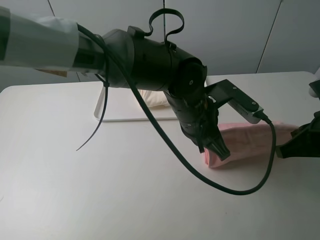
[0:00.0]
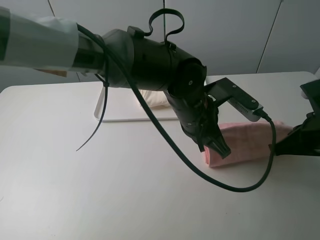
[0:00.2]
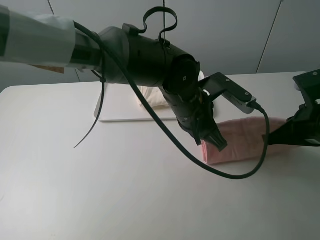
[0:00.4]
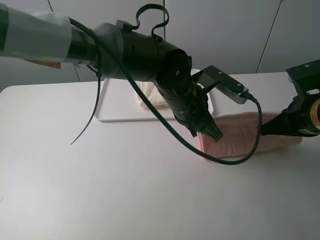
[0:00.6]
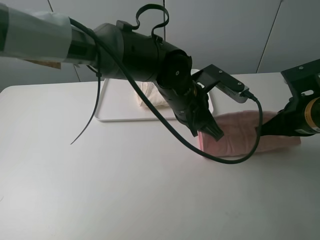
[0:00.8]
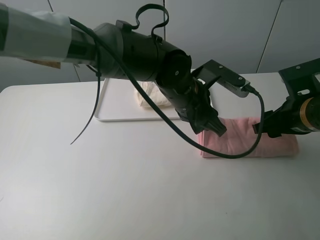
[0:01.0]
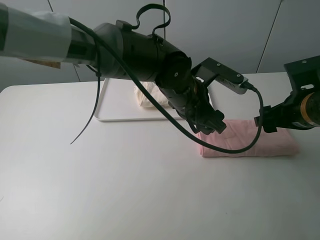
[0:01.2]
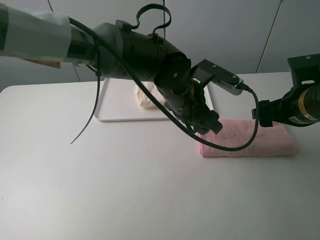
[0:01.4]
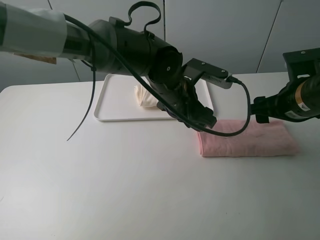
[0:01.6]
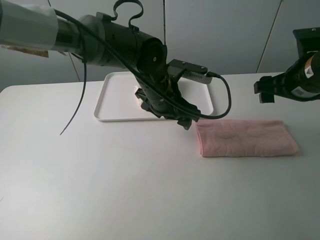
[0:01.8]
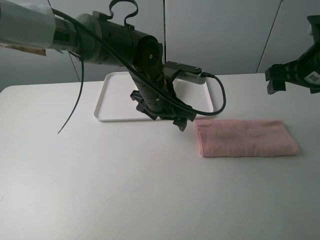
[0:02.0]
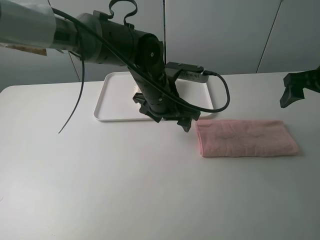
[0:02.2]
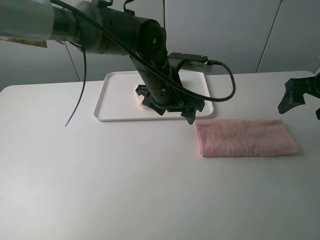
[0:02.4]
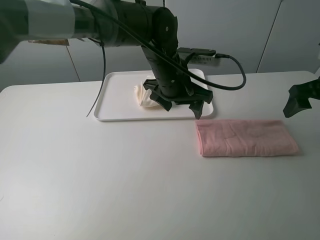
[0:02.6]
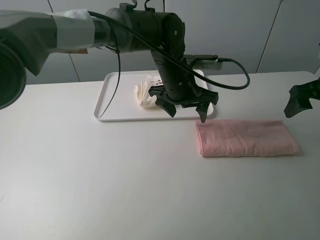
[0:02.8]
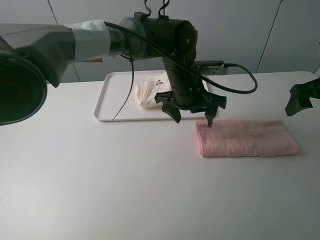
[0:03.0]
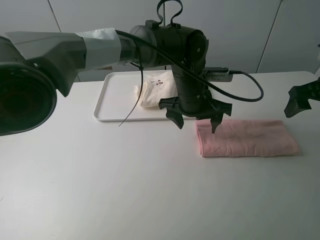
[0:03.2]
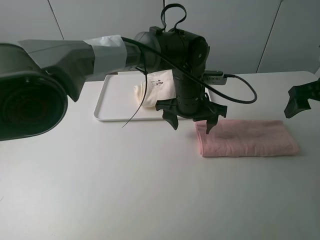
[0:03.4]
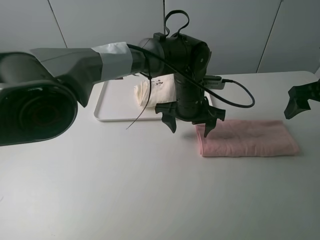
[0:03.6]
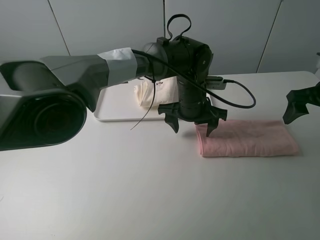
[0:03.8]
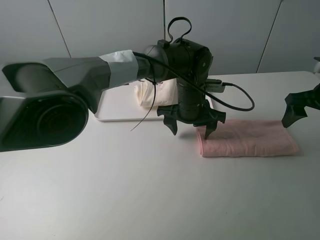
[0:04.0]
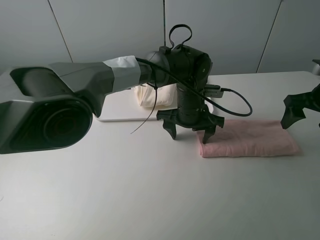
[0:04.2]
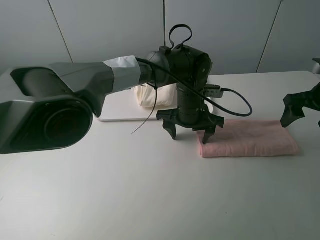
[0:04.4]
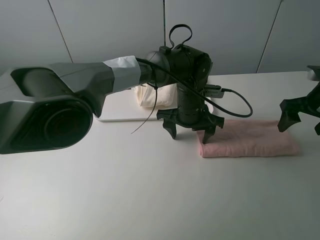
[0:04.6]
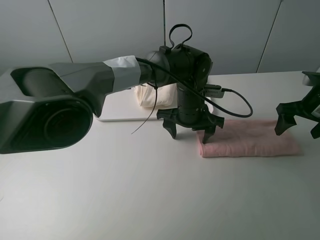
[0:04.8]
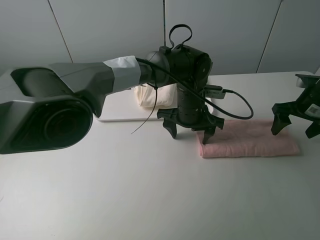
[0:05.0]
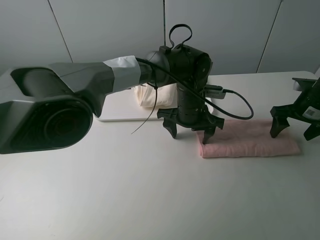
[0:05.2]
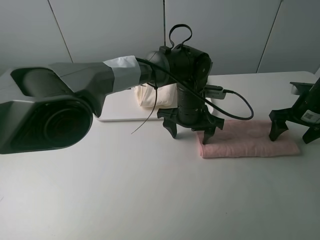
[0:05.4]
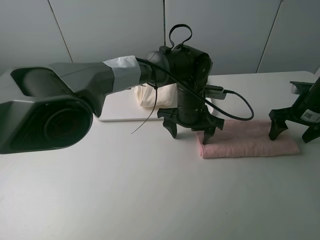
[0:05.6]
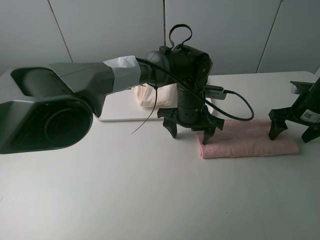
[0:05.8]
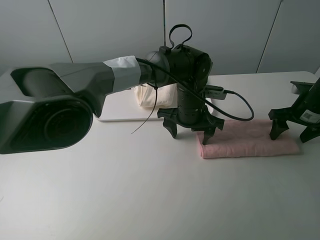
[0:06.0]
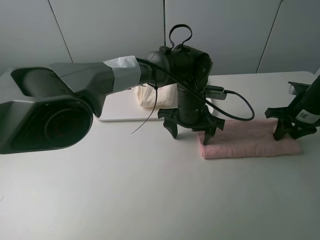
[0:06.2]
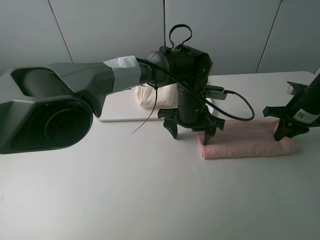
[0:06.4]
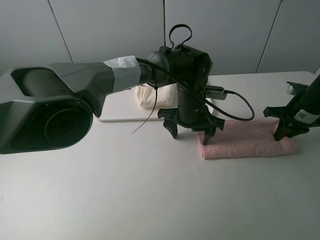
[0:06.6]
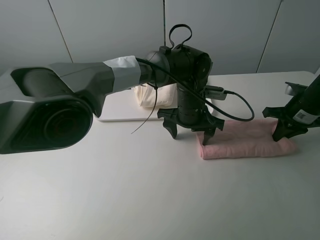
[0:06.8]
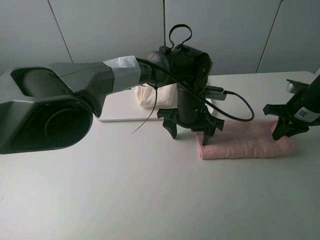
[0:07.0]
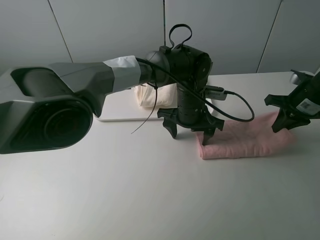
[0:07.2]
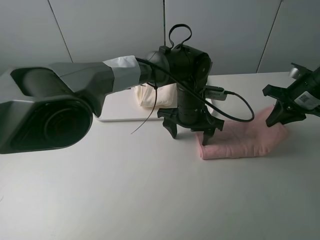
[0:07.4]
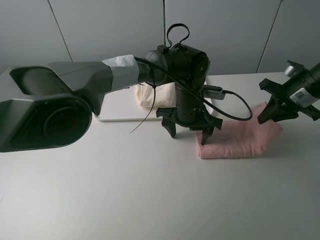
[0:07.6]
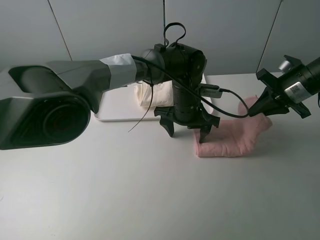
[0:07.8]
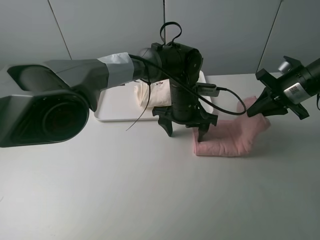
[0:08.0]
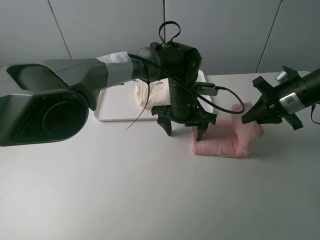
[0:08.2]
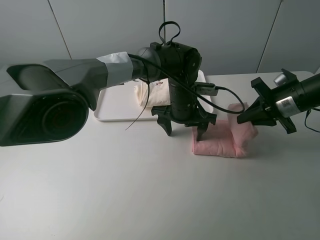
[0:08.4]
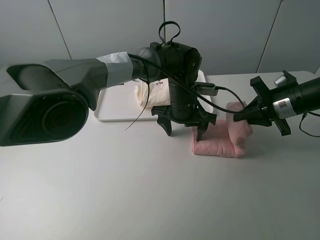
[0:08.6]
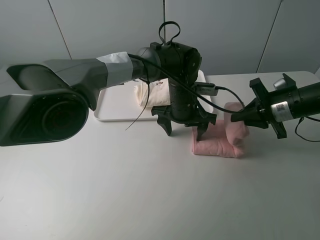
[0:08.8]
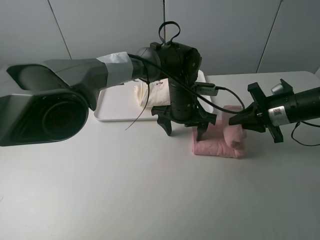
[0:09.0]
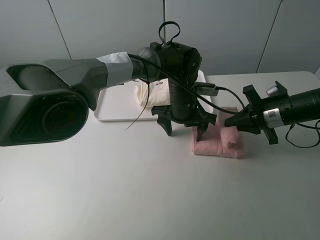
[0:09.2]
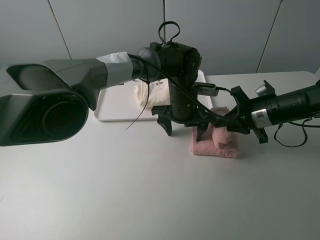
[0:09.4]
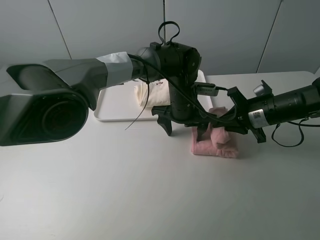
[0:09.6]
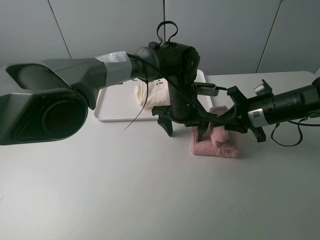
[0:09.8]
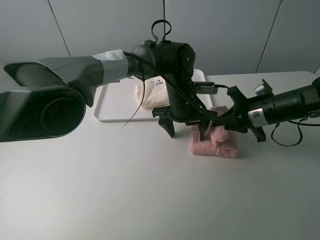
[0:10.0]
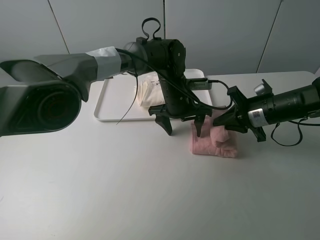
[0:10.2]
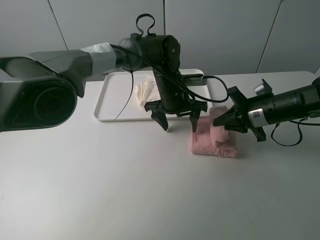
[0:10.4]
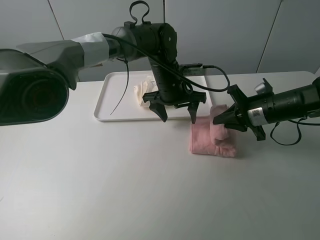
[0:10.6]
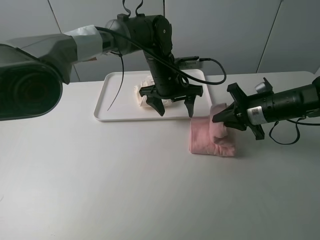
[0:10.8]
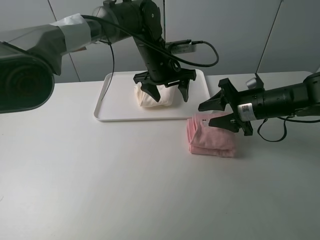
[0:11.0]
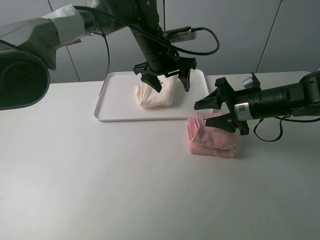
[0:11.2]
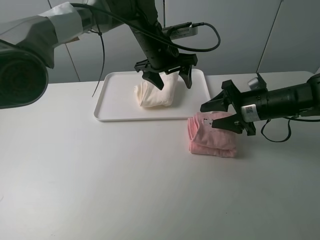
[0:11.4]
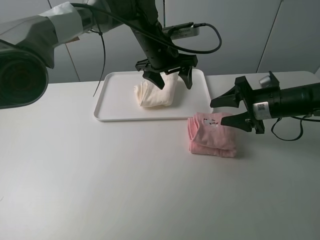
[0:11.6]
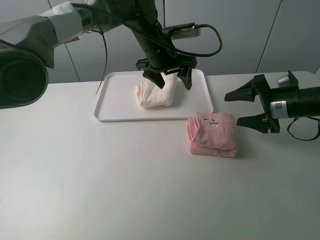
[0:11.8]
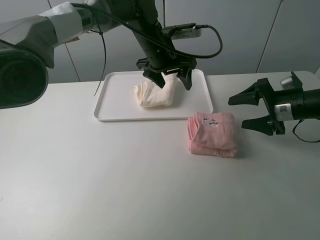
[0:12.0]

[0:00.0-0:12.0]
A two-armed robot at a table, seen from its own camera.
Task of the whole recording: fold one of the towels by two grippers and place it on the tray,then fold another towel by two grippers and place it on the folded towel.
Step, 0:01.6 to 0:04.6: Press the pink towel with the left gripper.
Step, 0:04.8 to 0:06.4: Grasp the pink towel with the right gripper.
Step, 0:06.6 to 0:11.2: Place the pink towel on the white towel with the right gripper.
0:00.0 to 0:01.6: The right gripper travels forward by about 10 cm, and opens up; the left gripper shifts about 5 cm forward, and opens its fingers.
0:01.6 to 0:03.0: The right gripper is displaced to the right by about 10 cm.
0:03.0 to 0:04.4: The left gripper travels downward by about 5 cm.
0:04.4 to 0:06.0: The right gripper goes some 5 cm downward.
0:06.0 to 0:07.6: The right gripper travels upward by some 5 cm, and closes its fingers.
0:07.6 to 0:09.0: The right gripper ends up some 5 cm from where it was.
0:09.0 to 0:10.4: The grippers stay close to where they were, moving slightly.
0:10.4 to 0:12.0: The right gripper heads to the right, covering some 5 cm, and opens its fingers. Meanwhile the left gripper heads upward, covering roughly 10 cm.

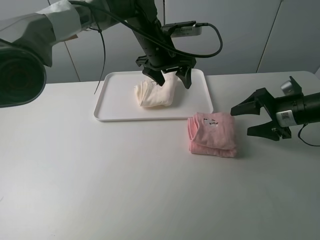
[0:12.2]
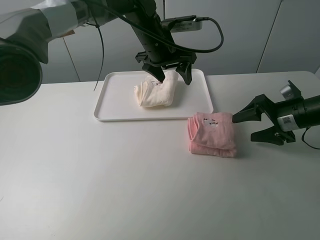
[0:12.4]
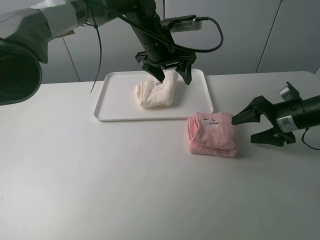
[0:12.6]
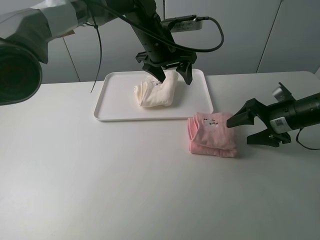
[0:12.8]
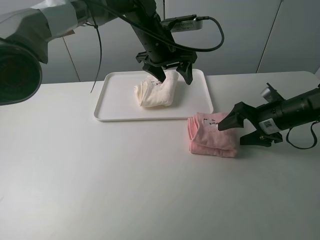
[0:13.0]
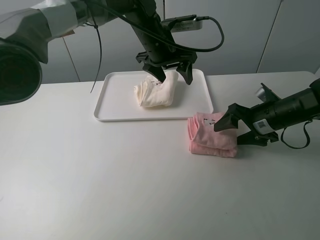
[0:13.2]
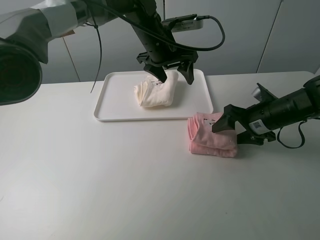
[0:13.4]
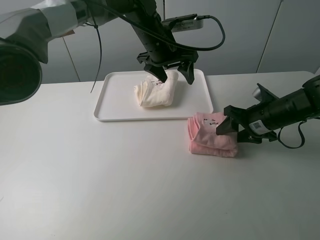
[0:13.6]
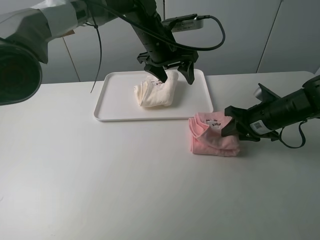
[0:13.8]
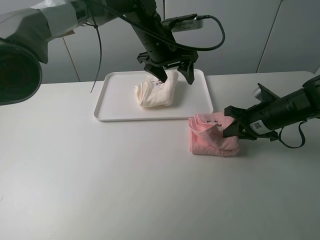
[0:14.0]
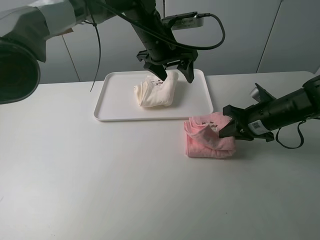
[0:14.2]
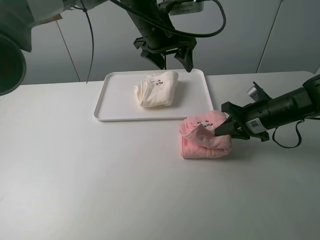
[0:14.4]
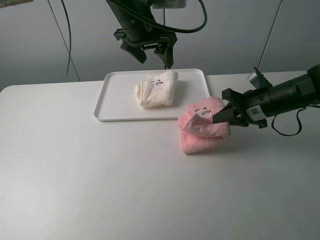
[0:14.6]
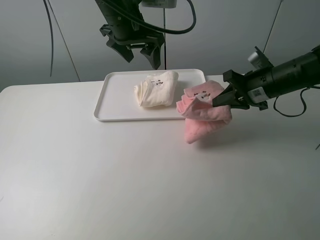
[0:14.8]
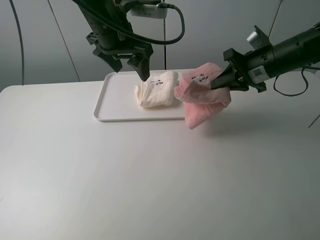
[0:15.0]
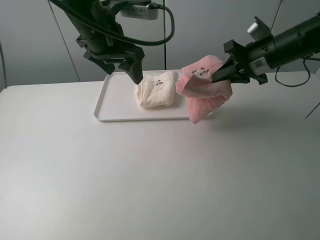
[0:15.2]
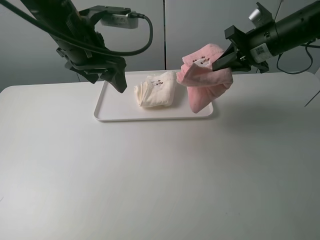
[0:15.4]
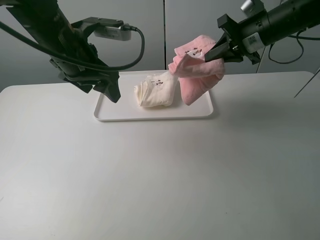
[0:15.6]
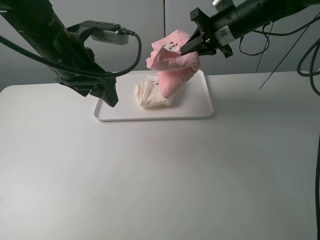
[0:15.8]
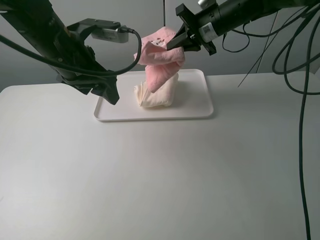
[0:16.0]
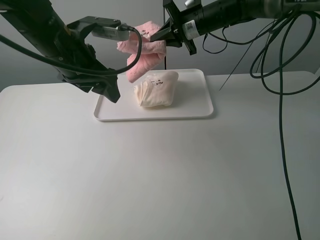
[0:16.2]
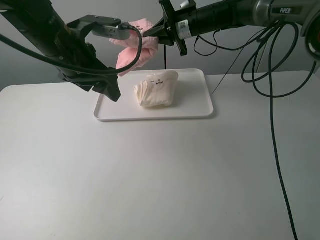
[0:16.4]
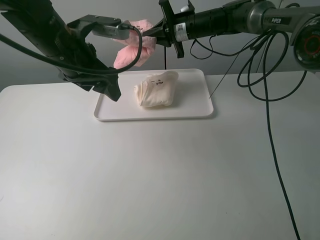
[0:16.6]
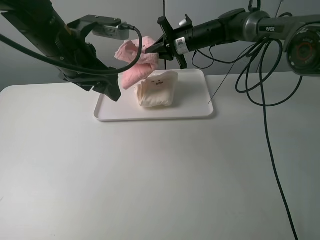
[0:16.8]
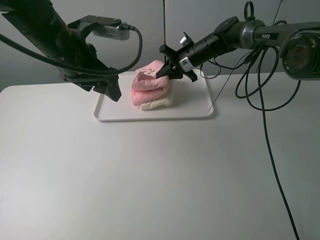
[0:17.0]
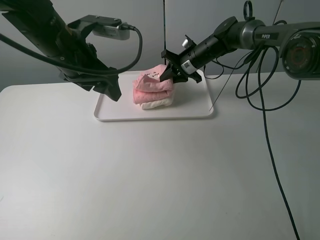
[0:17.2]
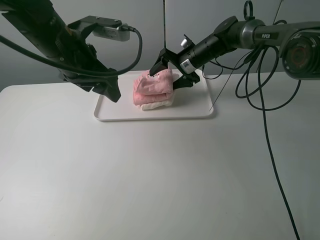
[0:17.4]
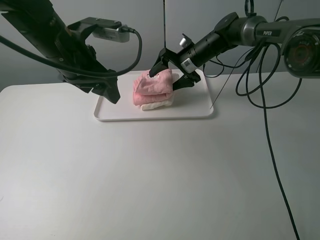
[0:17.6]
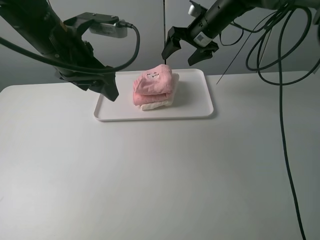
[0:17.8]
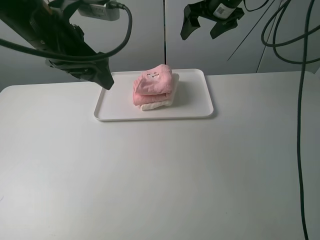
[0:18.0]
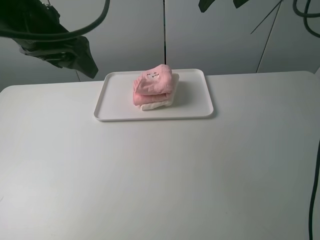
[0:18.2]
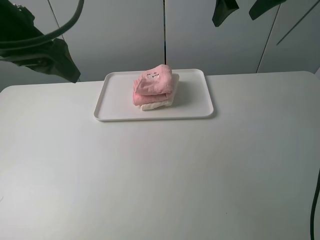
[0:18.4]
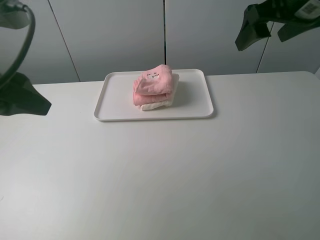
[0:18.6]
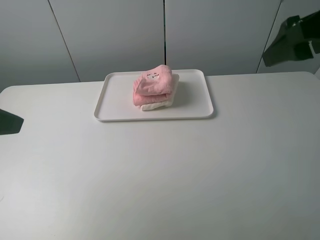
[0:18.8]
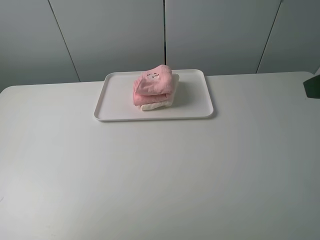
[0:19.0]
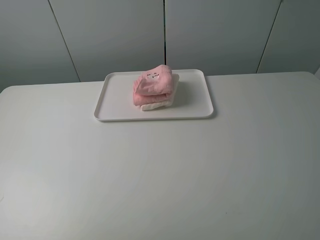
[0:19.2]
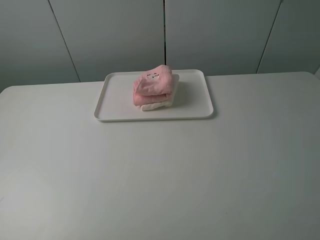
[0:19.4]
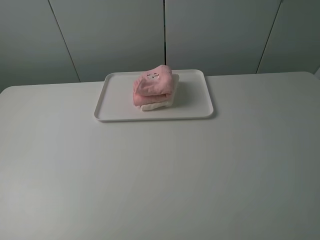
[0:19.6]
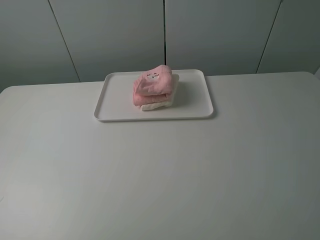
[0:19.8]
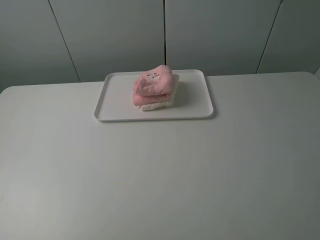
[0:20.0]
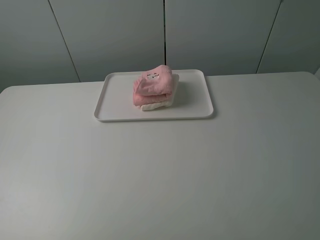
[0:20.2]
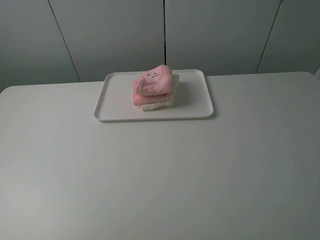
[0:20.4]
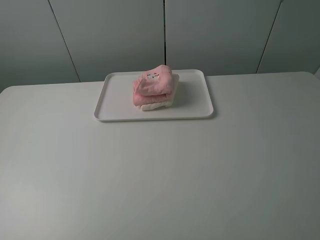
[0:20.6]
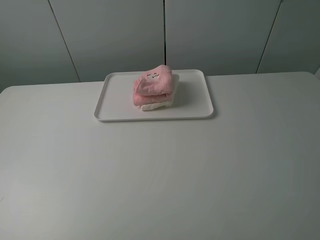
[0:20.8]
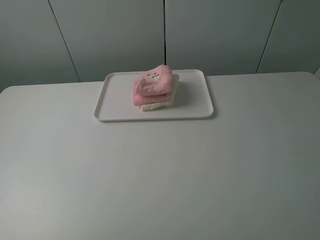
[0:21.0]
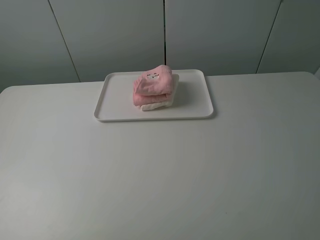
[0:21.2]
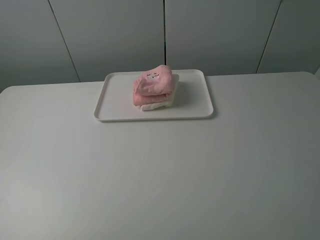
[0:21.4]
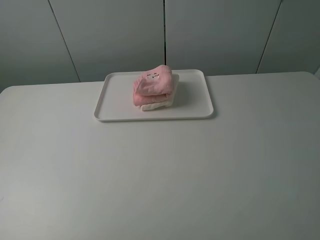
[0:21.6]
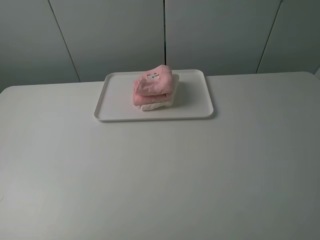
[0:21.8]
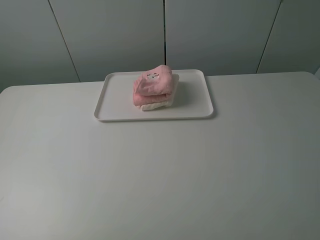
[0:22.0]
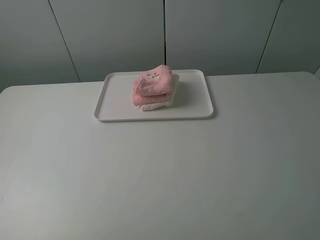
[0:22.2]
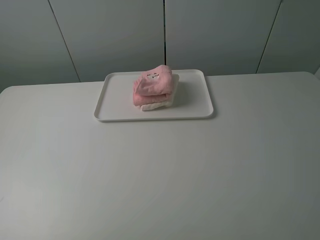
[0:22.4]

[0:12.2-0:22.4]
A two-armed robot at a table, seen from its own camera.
Task of the whole recording: fold one of the towels by two grippers and place it on the tray,then fold another towel by two grippers and place it on the folded towel.
Step, 0:12.2 to 0:13.8: Grasp the pink towel with the right gripper.
Step, 0:14.0 to 0:17.6: Place the pink towel on the white towel with the right gripper.
0:12.2 to 0:13.6: The right gripper is displaced to the left by approximately 5 cm.
0:13.6 to 0:15.2: The left gripper is displaced to the left, backward and upward by approximately 15 cm, while the right gripper travels upward and forward by approximately 15 cm, and closes.
0:15.2 to 0:16.6: The left gripper shifts by about 5 cm. Meanwhile the right gripper is displaced forward and to the left by about 20 cm.
0:16.6 to 0:18.0: The right gripper heads upward and to the right, covering some 10 cm, and opens up.
0:18.0 to 0:19.4: The left gripper is displaced backward and to the left by roughly 35 cm. The right gripper travels backward by some 50 cm.
